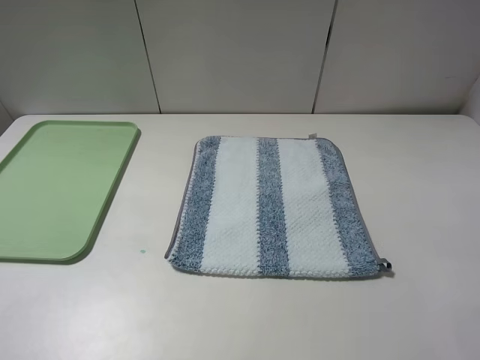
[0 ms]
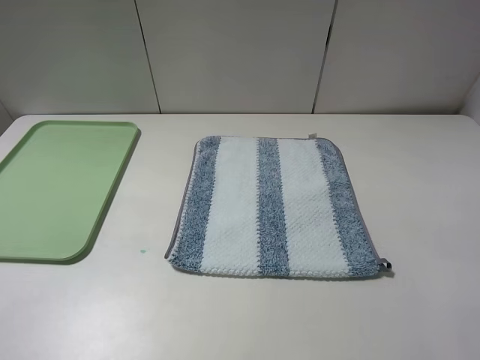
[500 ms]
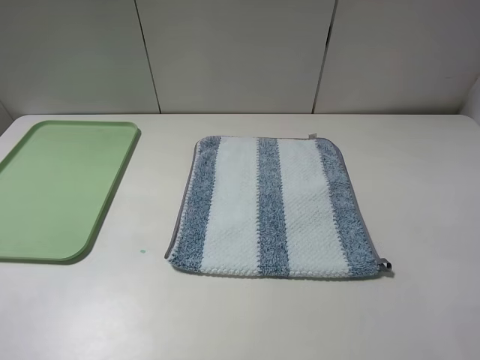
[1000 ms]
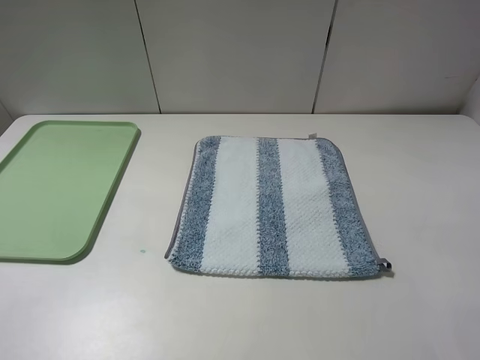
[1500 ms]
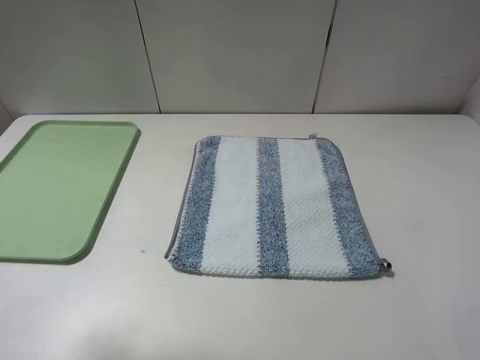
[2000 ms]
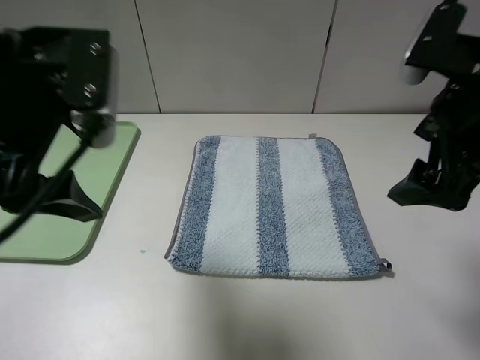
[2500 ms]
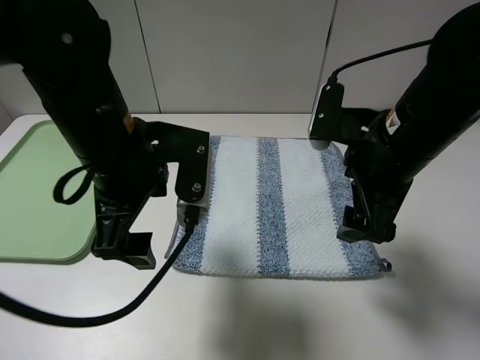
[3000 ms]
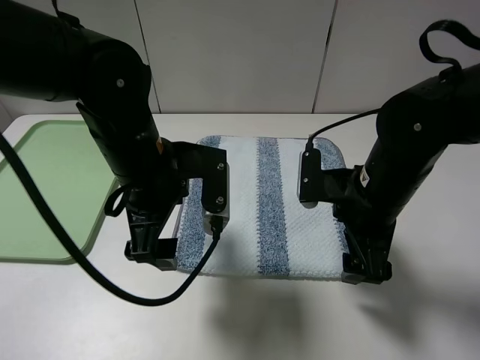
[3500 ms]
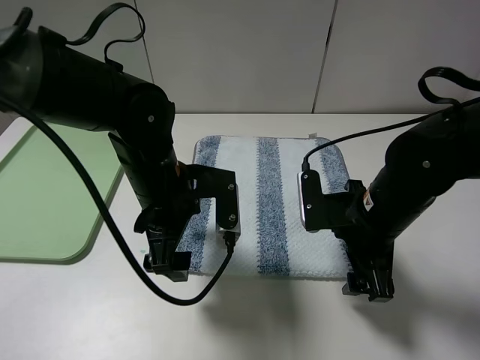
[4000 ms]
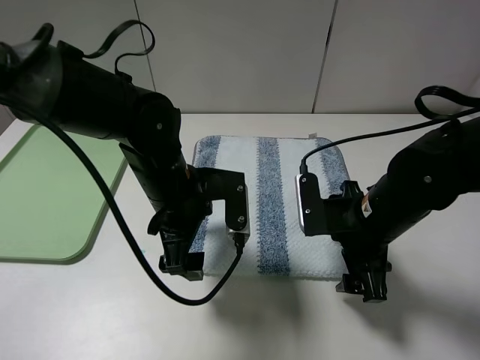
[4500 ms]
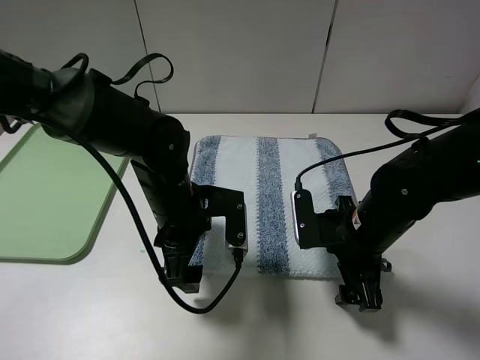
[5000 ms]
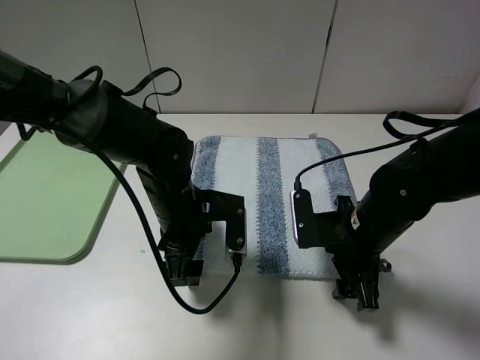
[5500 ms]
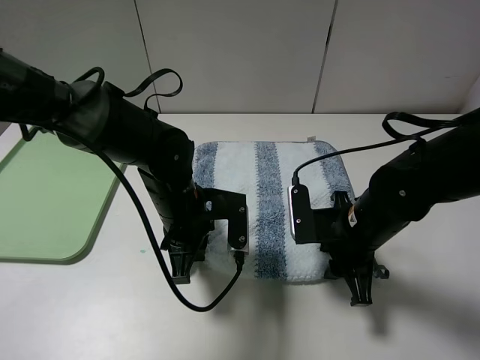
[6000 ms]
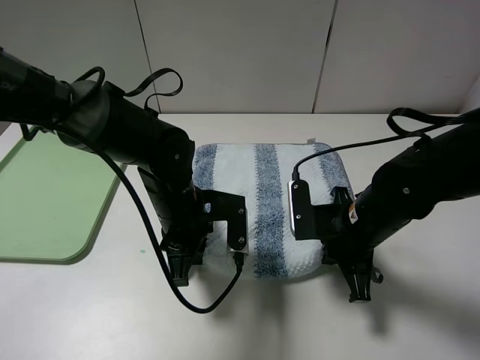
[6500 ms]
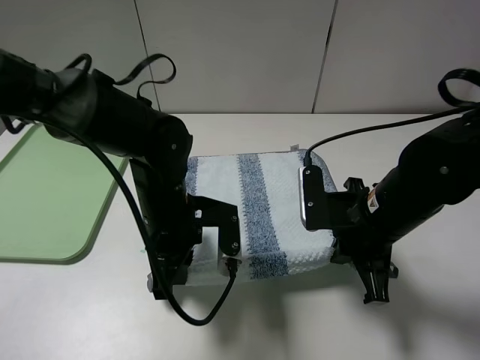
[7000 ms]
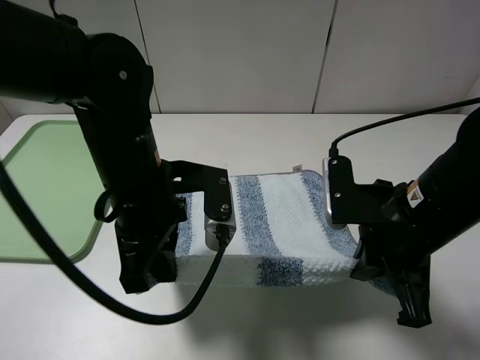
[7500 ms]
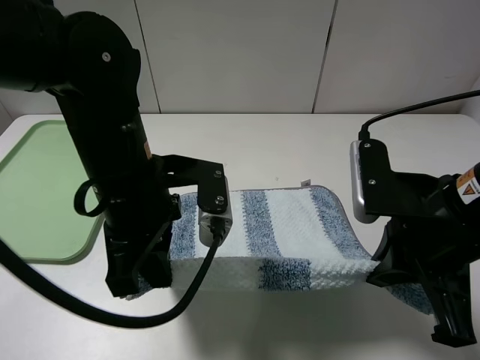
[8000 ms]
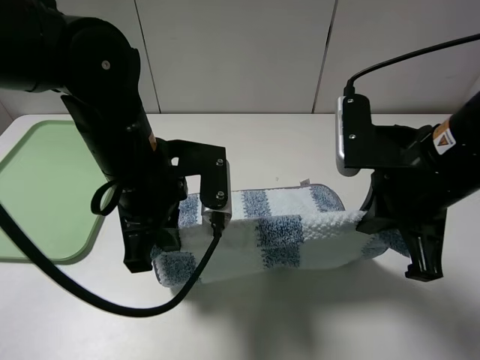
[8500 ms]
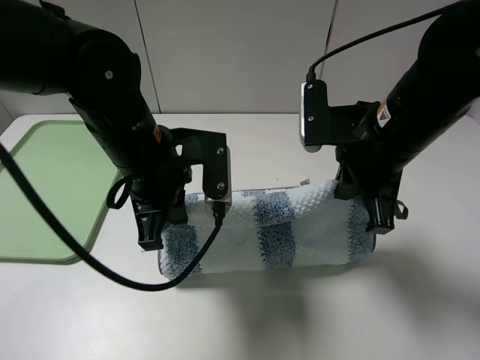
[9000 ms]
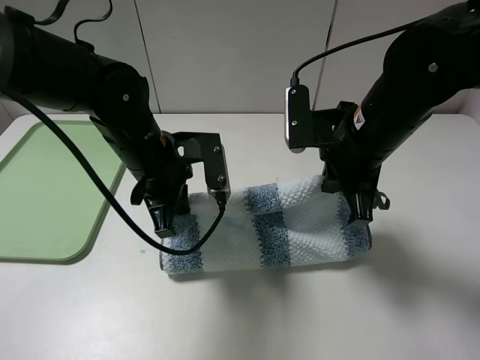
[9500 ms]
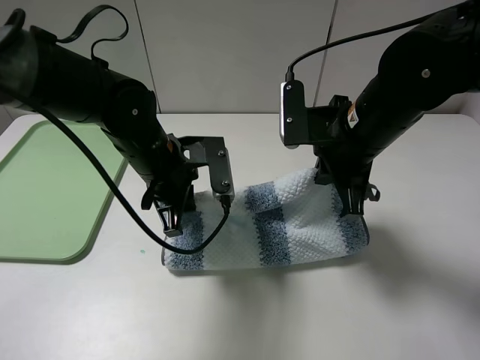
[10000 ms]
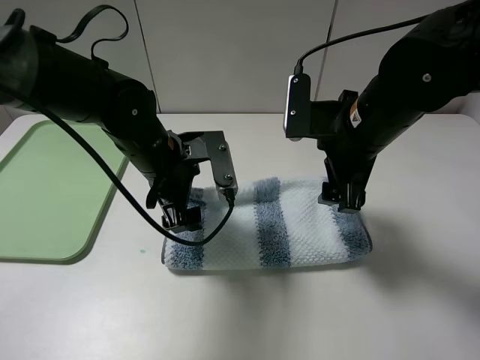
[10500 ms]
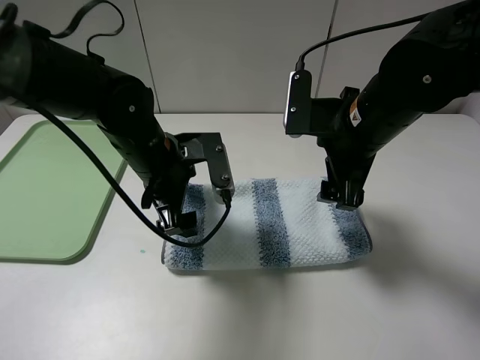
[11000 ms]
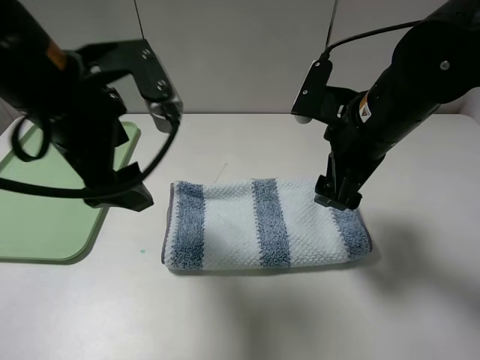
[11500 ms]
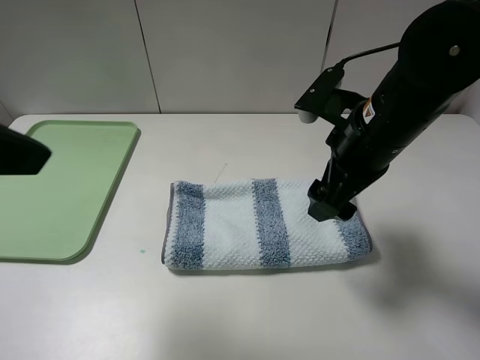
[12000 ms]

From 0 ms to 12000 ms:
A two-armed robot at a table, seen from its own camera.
Step, from 0 ms to 6500 ms: Grasp the blue white towel with the left gripper.
Step, from 7000 ms to 11000 ms: Fold the blue white towel upwards with the left gripper.
From 0 ms to 2000 ms: The left gripper goes some 15 cm forward and upward.
From 2000 ms to 4000 ms: The left gripper shifts about 30 cm downward, to the right and forward. Meanwhile the right gripper goes approximately 25 cm downward, to the left and forward.
From 4000 ms to 6000 ms: The left gripper heads downward, covering some 5 cm, and closes. Meanwhile the right gripper closes.
From 6000 ms to 8000 ms: The grippers both shift upward and backward by roughly 15 cm. The right gripper closes its fingers.
From 8000 ms to 10000 ms: The right gripper heads forward and to the left, covering about 15 cm; the left gripper heads forward and downward, covering about 10 cm.
From 10000 ms to 12000 ms: The left gripper shifts roughly 30 cm upward, backward and to the left, and opens up. Meanwhile the right gripper opens its fingers.

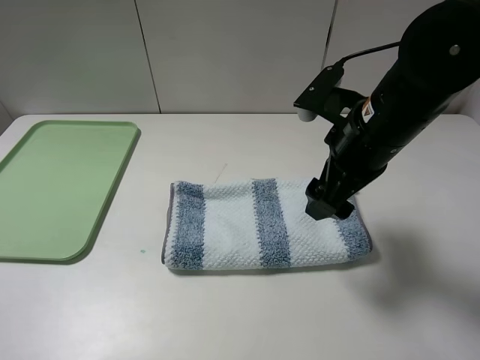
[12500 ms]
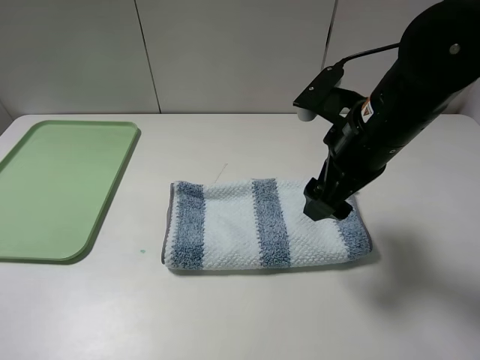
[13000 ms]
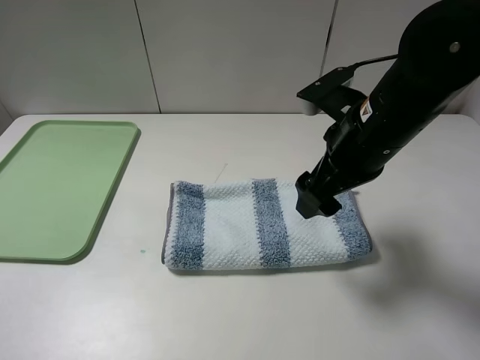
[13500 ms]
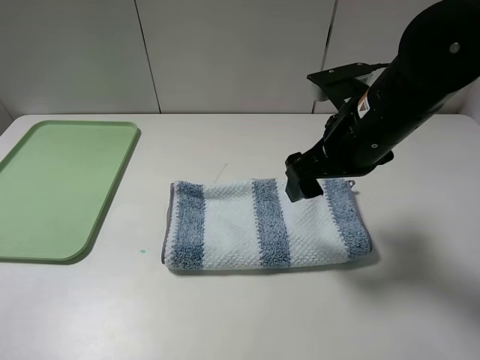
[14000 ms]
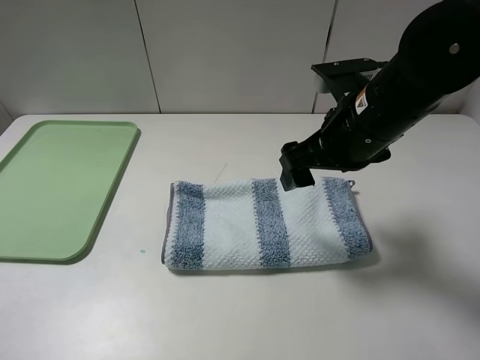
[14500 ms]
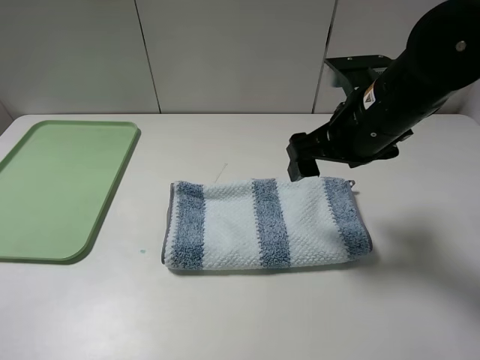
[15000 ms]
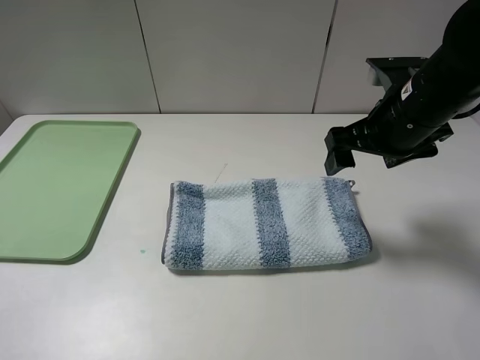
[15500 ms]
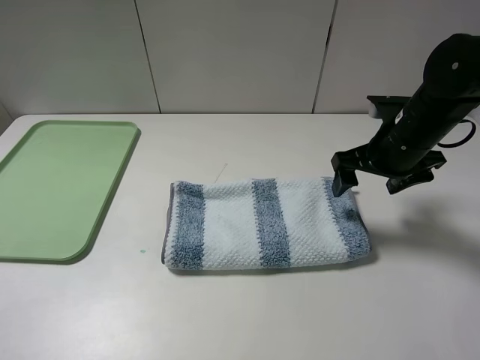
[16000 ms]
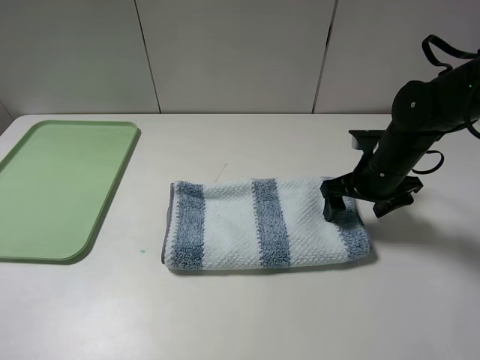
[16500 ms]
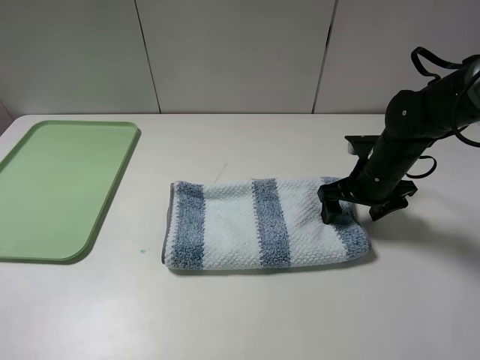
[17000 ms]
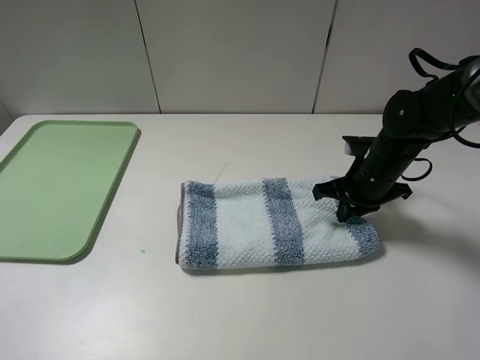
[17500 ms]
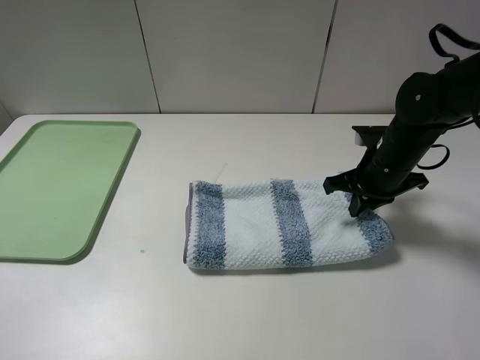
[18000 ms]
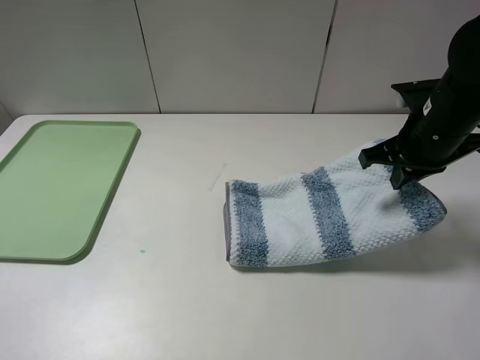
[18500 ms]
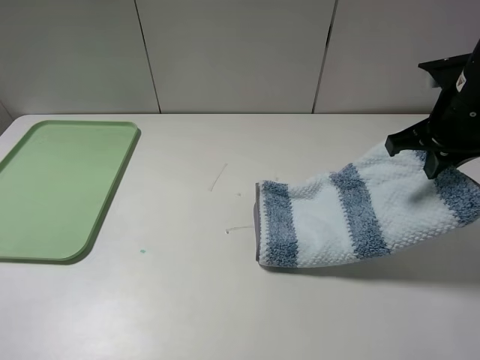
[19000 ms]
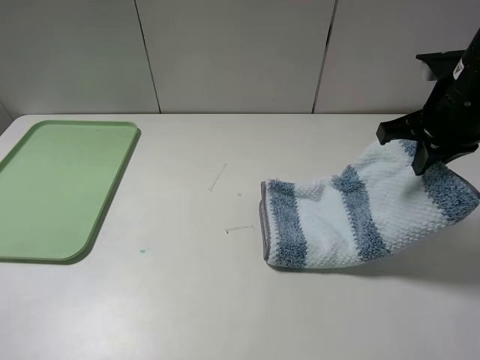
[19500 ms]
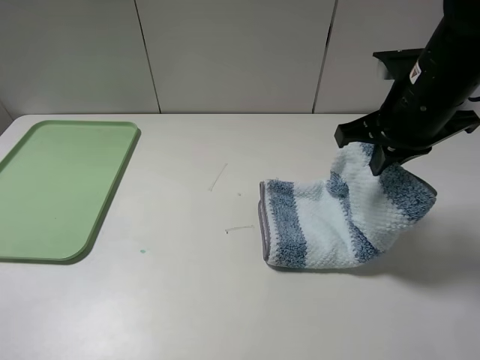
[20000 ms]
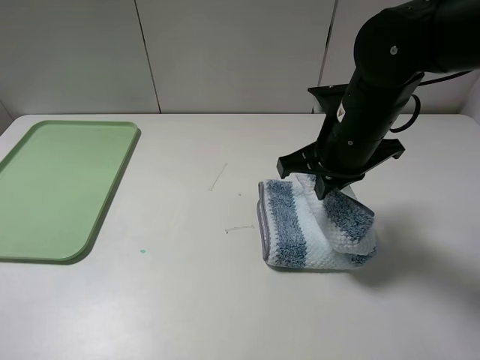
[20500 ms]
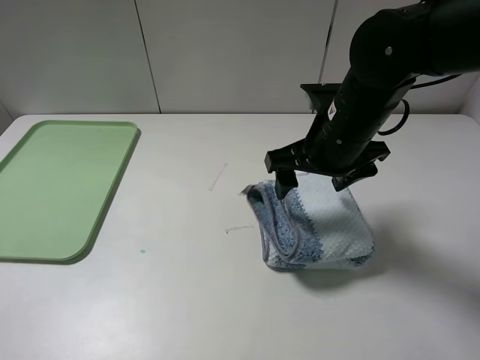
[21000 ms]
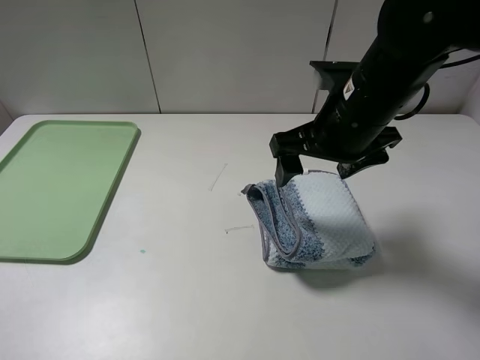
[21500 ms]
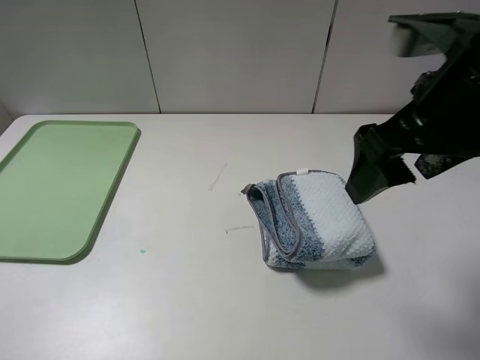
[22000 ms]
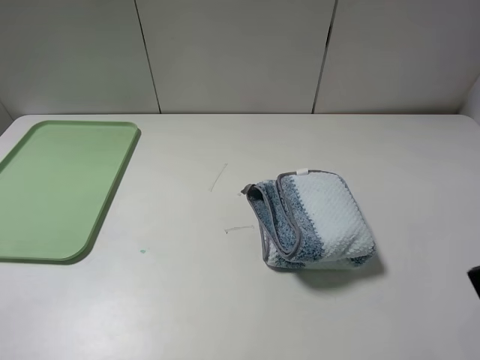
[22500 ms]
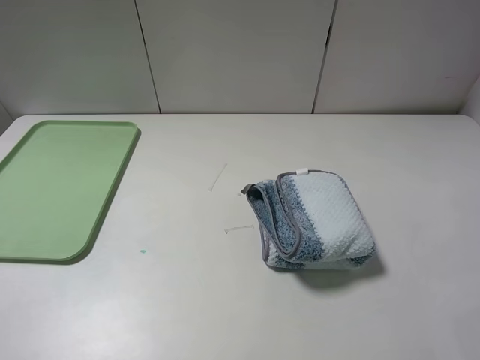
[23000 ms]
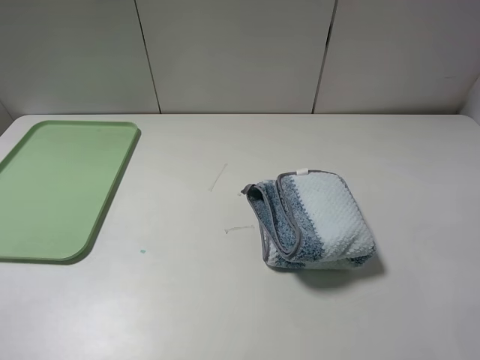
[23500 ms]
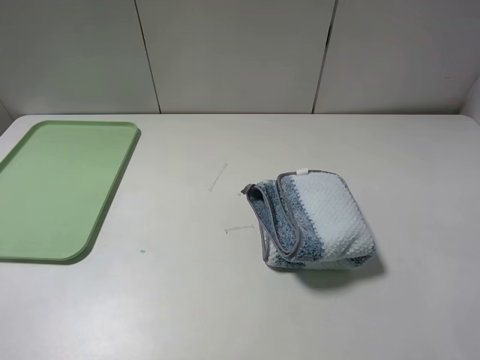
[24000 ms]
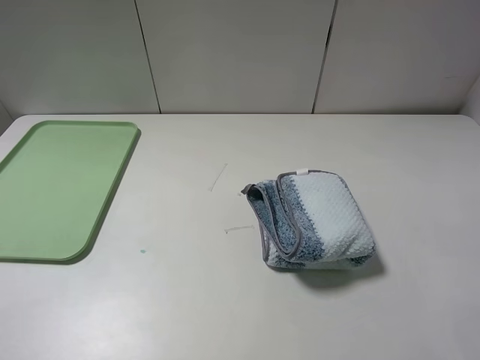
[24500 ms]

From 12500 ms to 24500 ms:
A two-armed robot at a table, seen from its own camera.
Step, from 12500 ms to 17500 ms: Grasp the blue white towel with the right gripper.
Step, from 18000 ms to 21500 ms: Fold the blue white towel from right to left with right gripper.
From 14500 ms to 16500 ms: The right gripper goes about 15 cm downward, to the right and forward.
From 16500 ms to 18500 ms: The right gripper heads upward, covering approximately 10 cm, and closes its fingers.
From 18500 ms to 20500 ms: The right gripper is displaced to the left by roughly 10 cm.
From 20500 ms to 22500 ms: The right gripper is displaced backward, to the right and upward by roughly 30 cm, and opens its fingers.

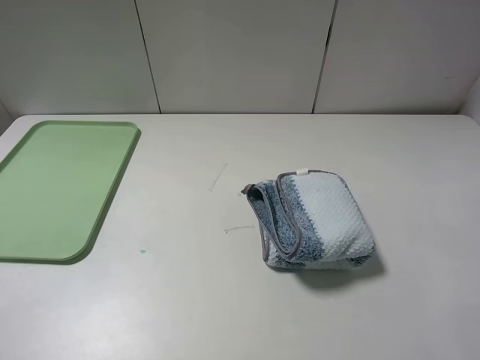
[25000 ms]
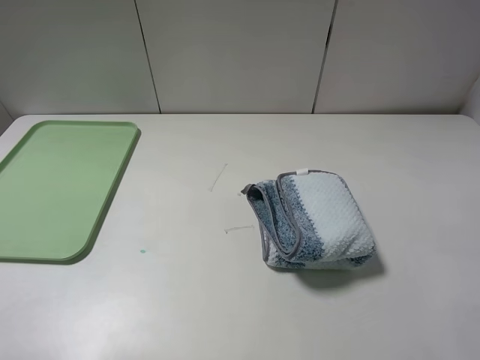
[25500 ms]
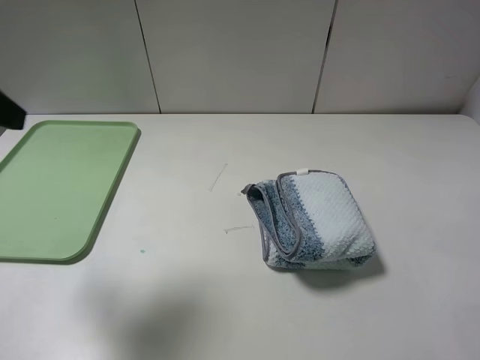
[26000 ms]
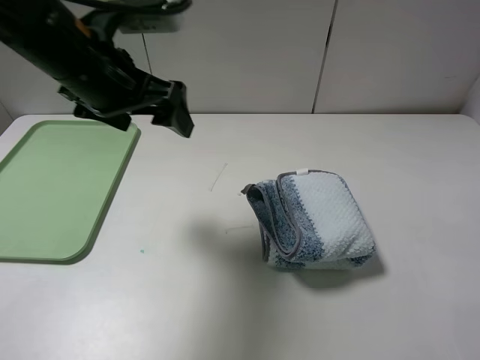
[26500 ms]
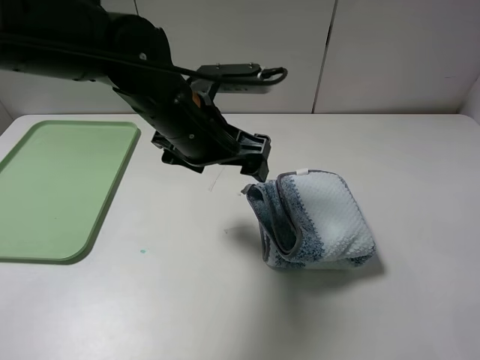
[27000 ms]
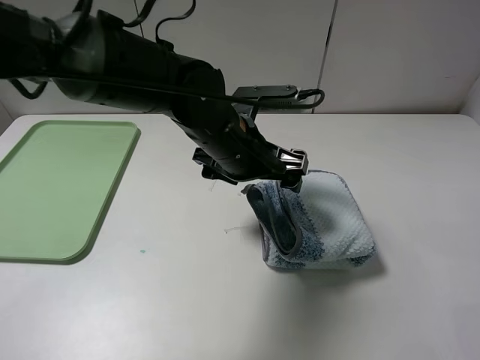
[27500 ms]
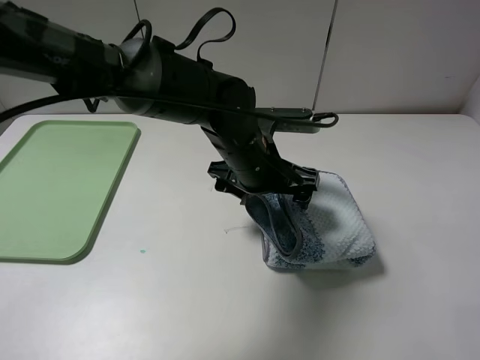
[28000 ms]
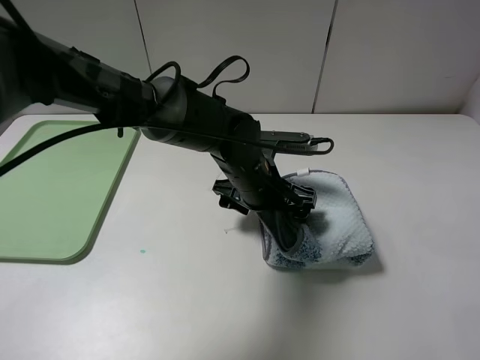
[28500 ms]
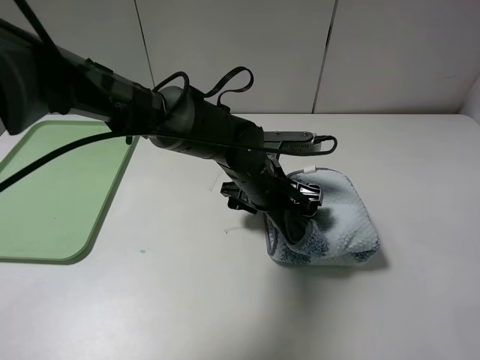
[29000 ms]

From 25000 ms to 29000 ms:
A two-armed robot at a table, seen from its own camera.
From 25000 ms to 27000 ms: The left gripper travels to the right and forward by some 40 cm.
From 27000 ms to 29000 ms: The left gripper goes some 15 cm downward and to the right.
